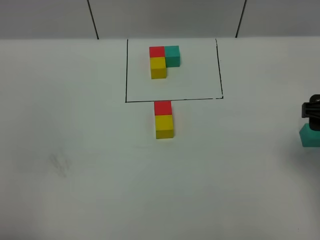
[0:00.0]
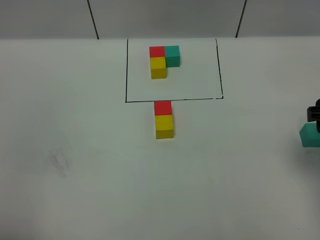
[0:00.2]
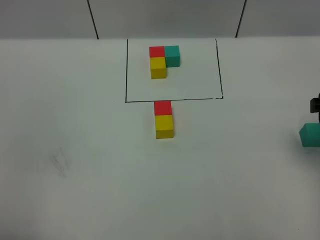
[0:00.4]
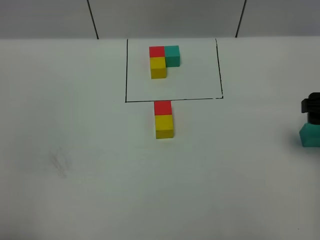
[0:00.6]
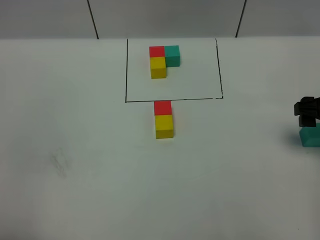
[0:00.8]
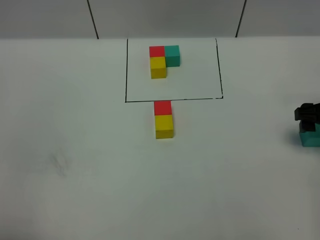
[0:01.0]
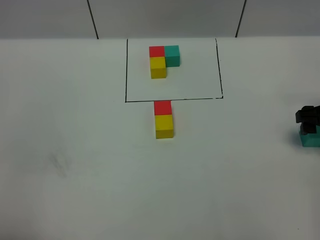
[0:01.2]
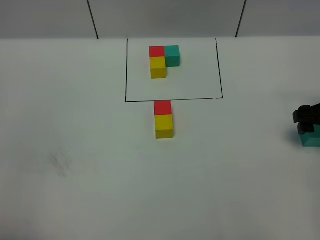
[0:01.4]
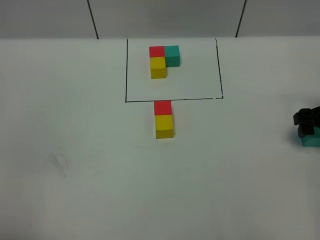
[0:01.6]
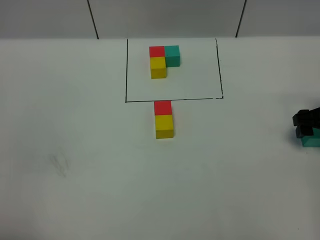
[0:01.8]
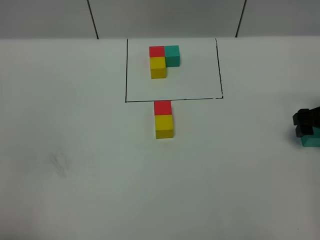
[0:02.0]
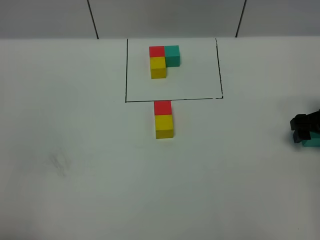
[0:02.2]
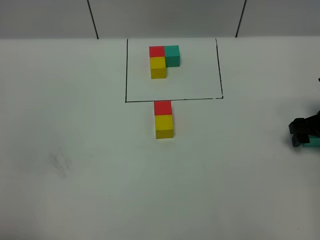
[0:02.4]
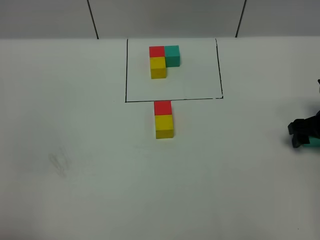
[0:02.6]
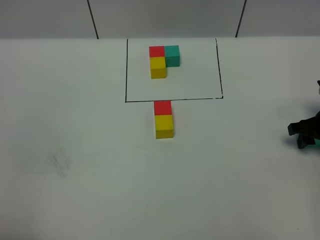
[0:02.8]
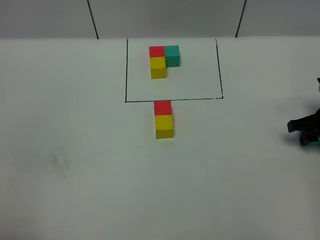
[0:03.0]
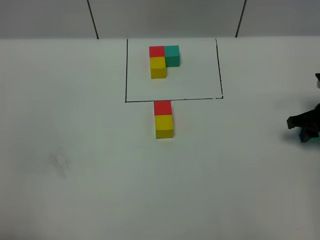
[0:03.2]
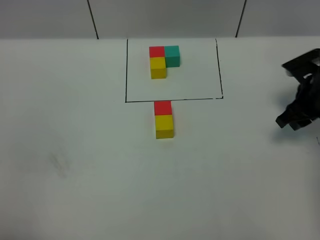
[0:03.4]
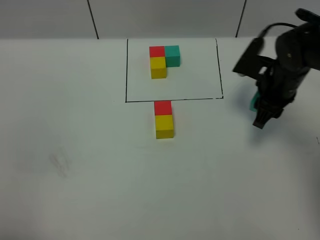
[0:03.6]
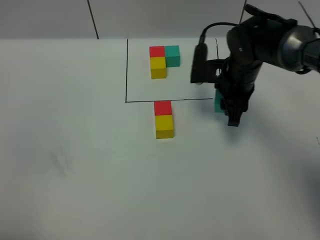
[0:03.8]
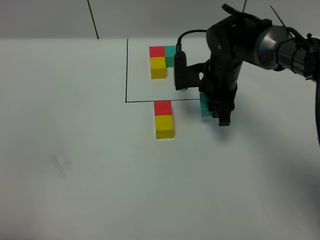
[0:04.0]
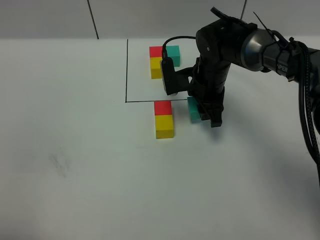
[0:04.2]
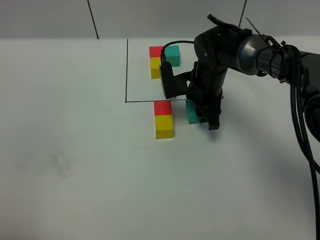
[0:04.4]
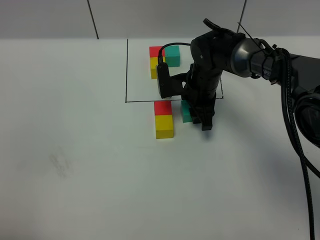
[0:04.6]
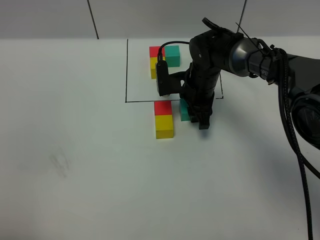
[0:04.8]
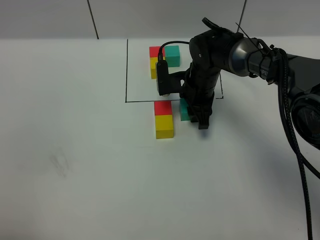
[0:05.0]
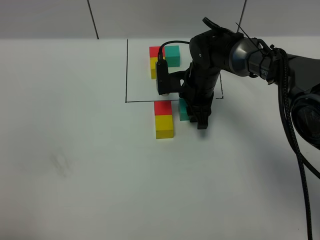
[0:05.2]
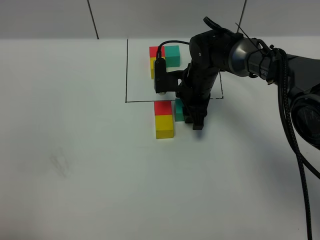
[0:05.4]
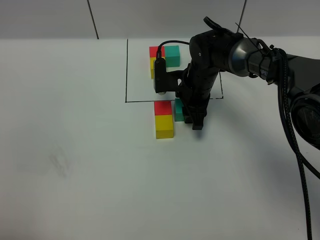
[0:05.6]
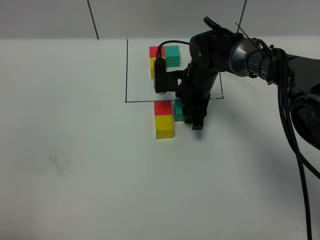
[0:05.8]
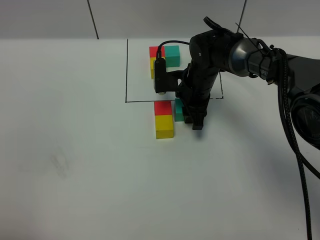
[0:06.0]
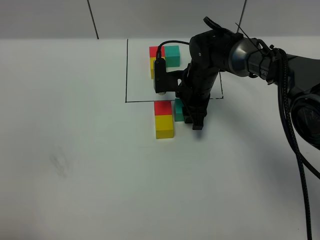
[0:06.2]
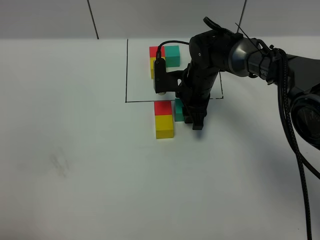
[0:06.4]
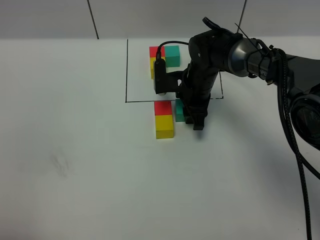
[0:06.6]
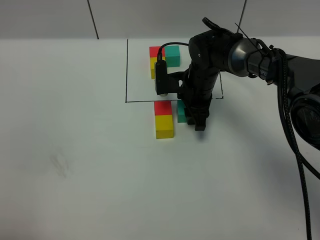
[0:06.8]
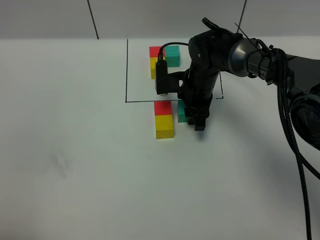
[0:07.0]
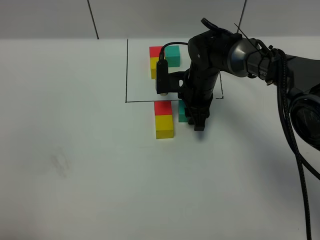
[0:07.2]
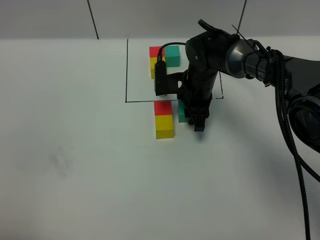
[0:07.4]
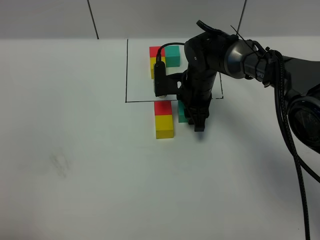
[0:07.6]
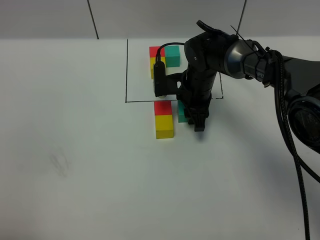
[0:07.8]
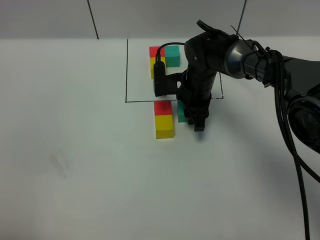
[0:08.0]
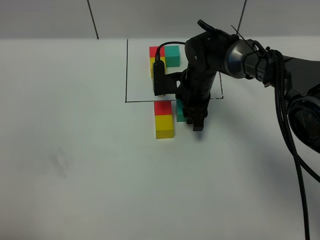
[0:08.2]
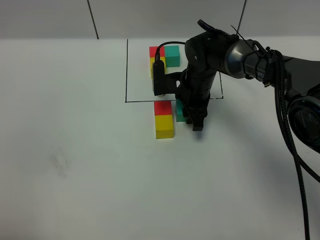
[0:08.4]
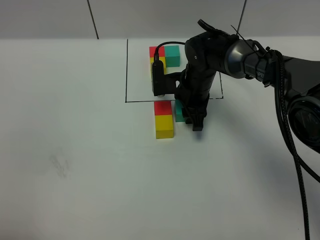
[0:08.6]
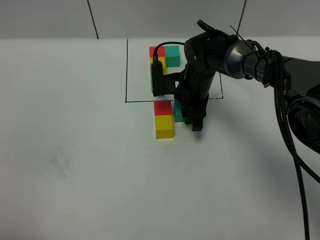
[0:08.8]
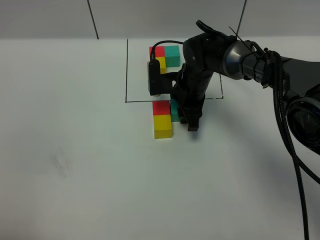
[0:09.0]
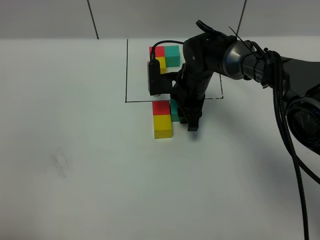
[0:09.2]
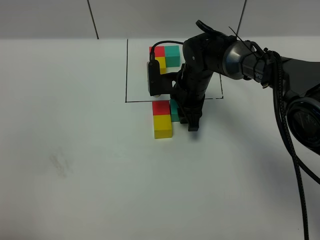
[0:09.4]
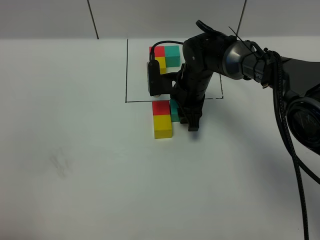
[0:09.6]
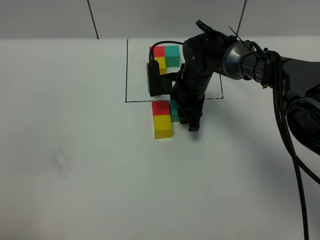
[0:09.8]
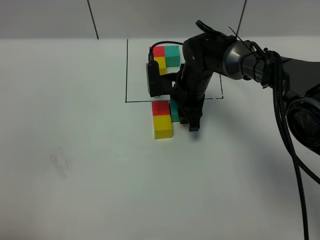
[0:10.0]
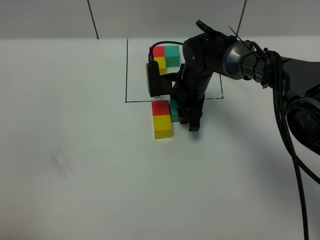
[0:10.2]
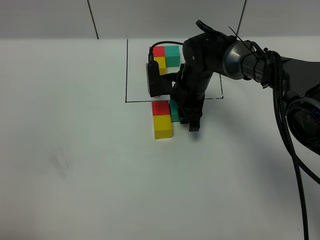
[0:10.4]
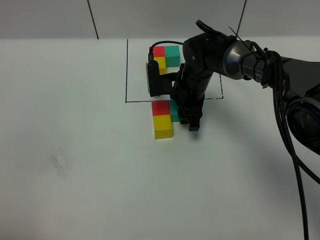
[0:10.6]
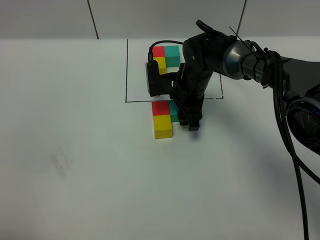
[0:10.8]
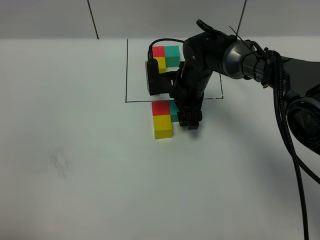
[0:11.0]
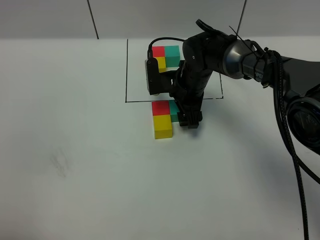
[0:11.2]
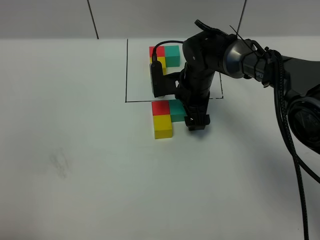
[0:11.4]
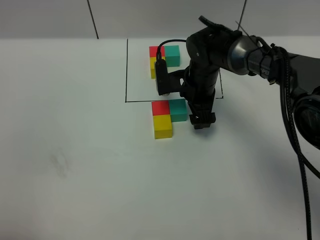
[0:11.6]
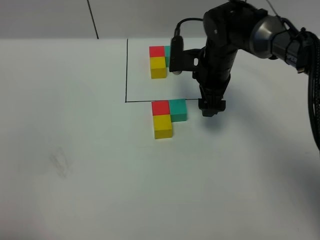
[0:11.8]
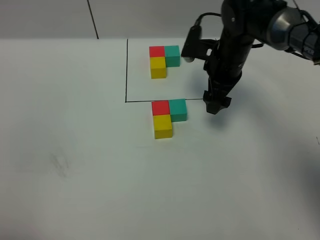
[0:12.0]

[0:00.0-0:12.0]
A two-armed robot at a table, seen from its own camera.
Task of the whole recording: According to the building block template in front, assemble the scattered blocks together.
Step, 0:00.0 to 0:10.8: Put the green build block on the right of the red build block.
0:00.0 to 0:01.6: The right gripper goes about 20 cm downward, forward and to the right.
0:01.6 to 0:03.0: The right gripper closes its fingers.
0:03.0 to 0:04.4: The right gripper goes some 25 cm to the left.
0:04.4 to 0:06.0: There are only small adjustments of the grippers.
0:06.0 to 0:10.4: The two grippers keep their place.
0:10.4 to 0:12.0: The right gripper goes about 10 cm to the right and upward, and opens.

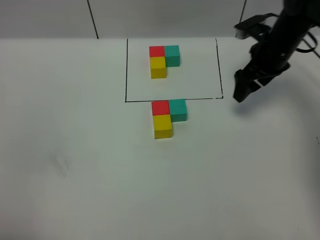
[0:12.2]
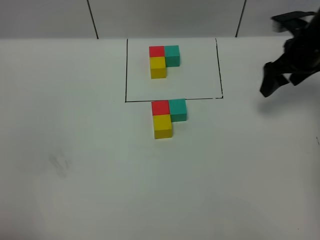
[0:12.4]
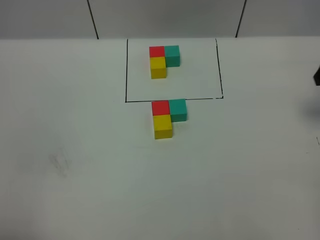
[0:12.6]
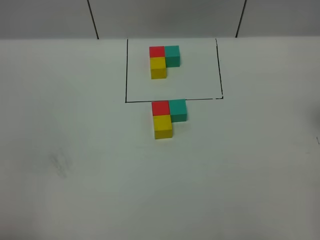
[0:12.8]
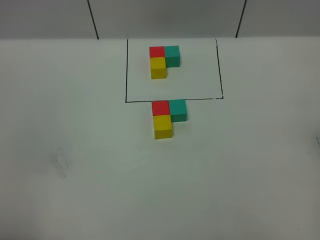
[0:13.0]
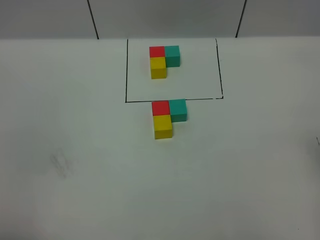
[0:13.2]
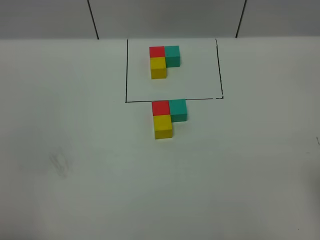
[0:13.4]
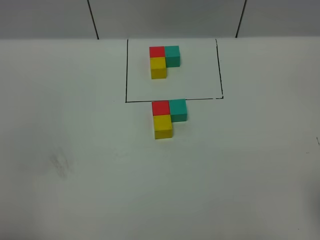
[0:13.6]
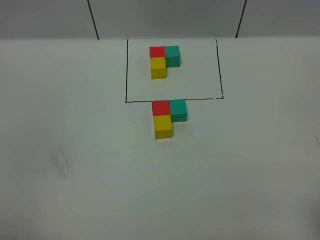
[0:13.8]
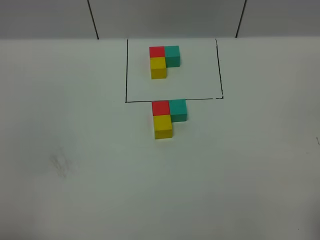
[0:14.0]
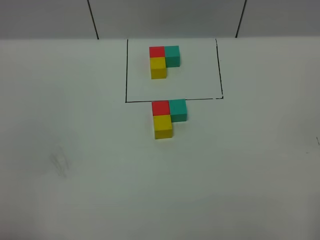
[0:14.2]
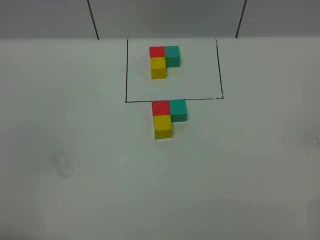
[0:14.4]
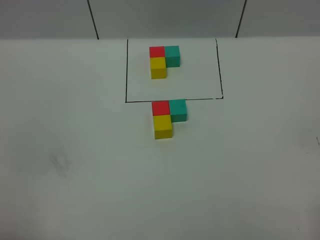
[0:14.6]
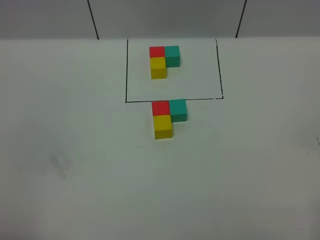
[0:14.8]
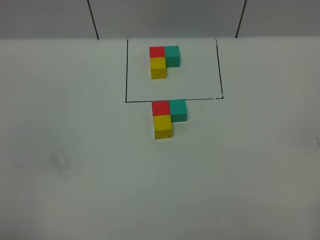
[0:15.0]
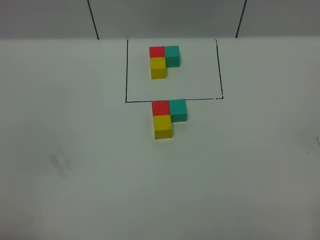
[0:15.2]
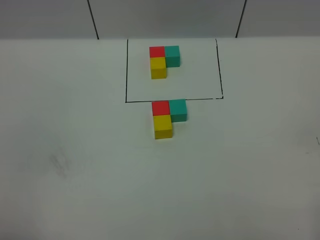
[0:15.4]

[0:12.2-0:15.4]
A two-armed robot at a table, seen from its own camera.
Task of the whole recording: According to the building block template in front, assemble the scattered blocks together.
0:12.2 to 0:13.8: The right gripper moves backward, approximately 40 cm.

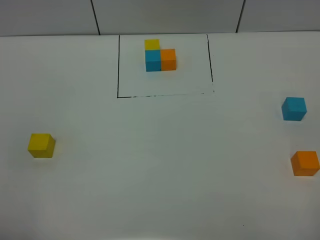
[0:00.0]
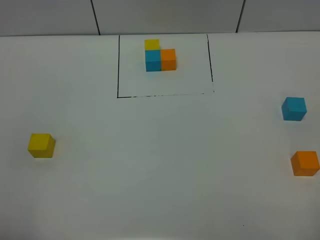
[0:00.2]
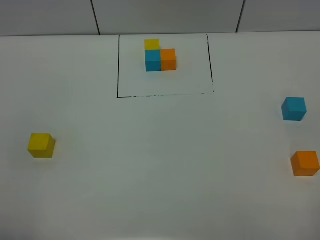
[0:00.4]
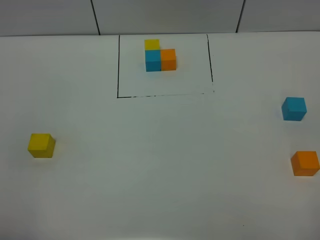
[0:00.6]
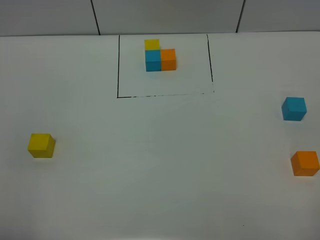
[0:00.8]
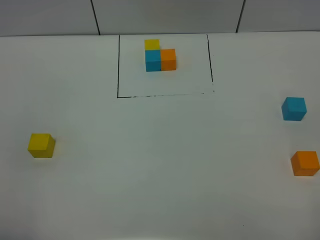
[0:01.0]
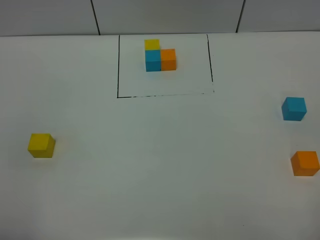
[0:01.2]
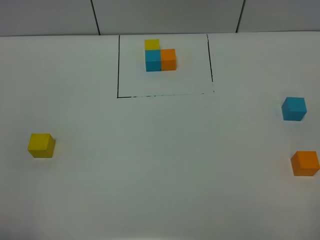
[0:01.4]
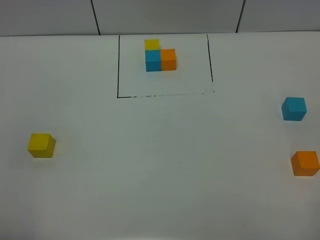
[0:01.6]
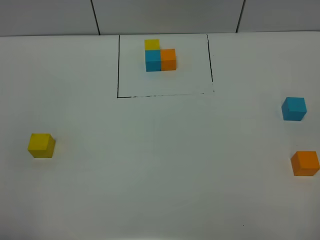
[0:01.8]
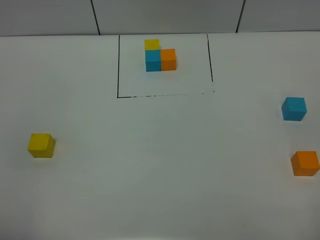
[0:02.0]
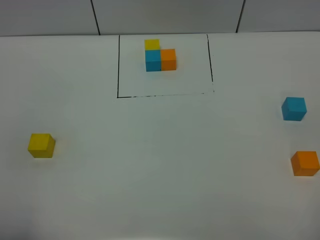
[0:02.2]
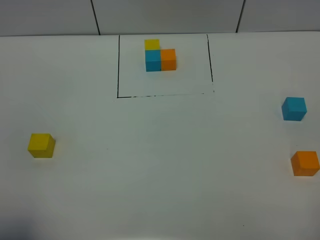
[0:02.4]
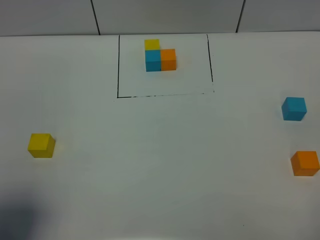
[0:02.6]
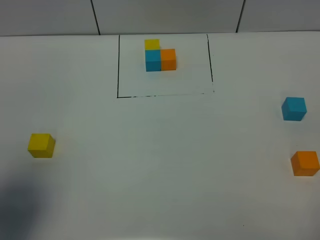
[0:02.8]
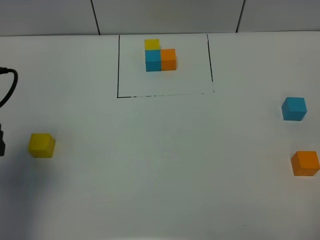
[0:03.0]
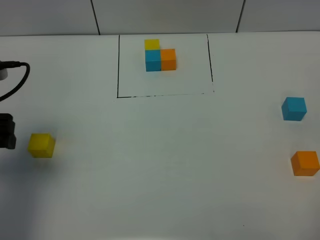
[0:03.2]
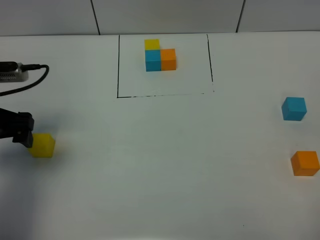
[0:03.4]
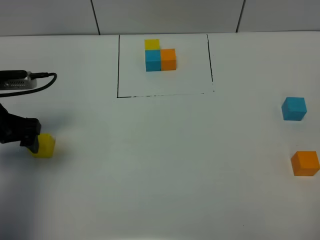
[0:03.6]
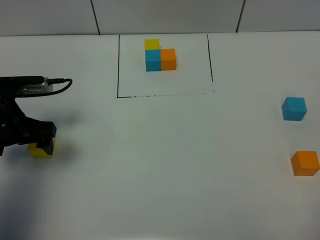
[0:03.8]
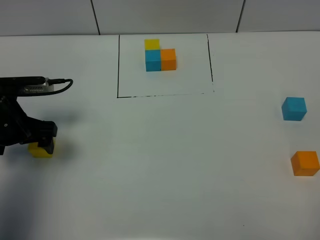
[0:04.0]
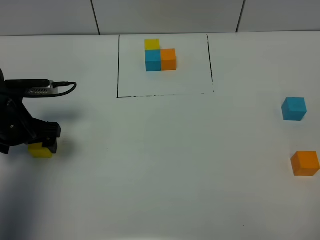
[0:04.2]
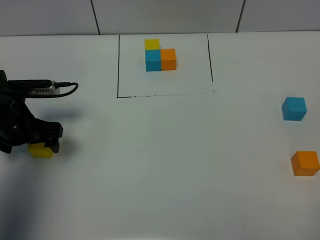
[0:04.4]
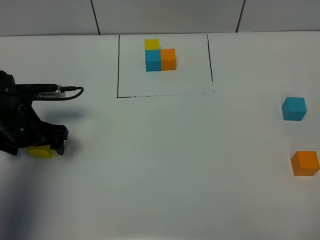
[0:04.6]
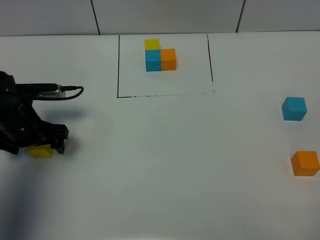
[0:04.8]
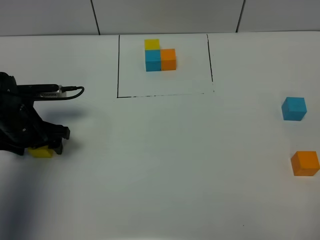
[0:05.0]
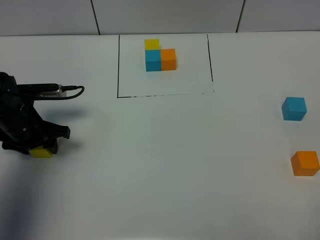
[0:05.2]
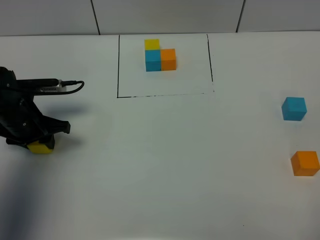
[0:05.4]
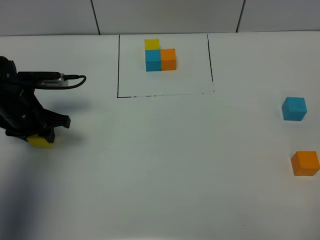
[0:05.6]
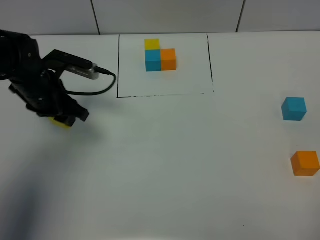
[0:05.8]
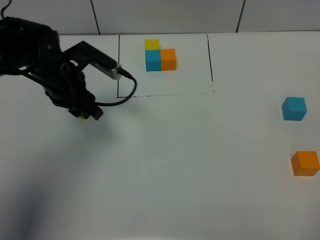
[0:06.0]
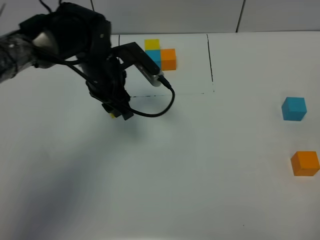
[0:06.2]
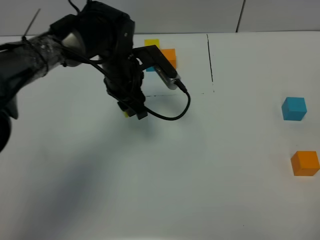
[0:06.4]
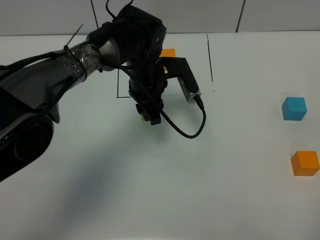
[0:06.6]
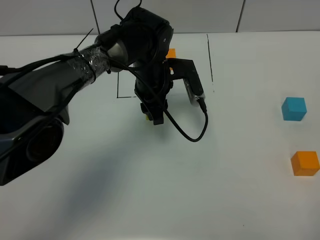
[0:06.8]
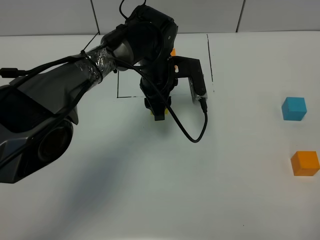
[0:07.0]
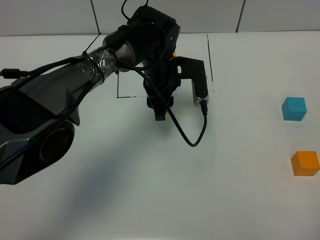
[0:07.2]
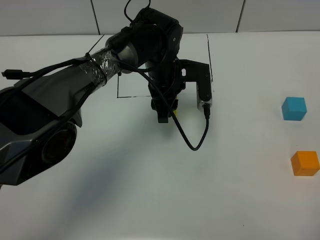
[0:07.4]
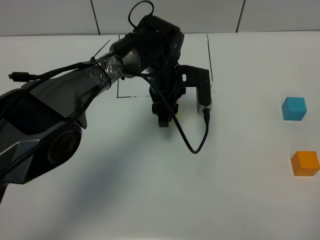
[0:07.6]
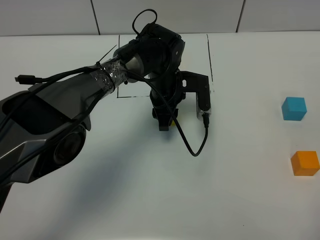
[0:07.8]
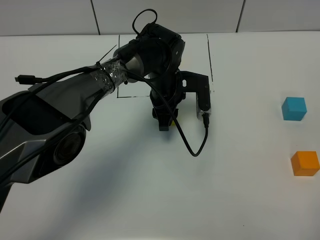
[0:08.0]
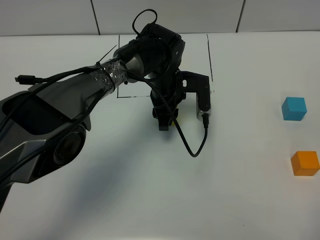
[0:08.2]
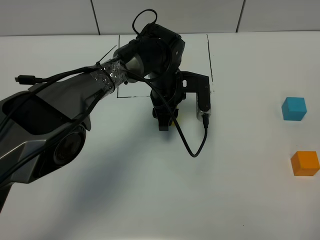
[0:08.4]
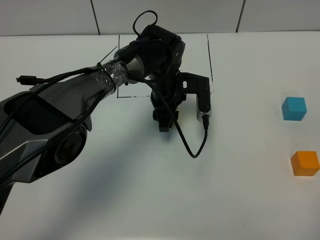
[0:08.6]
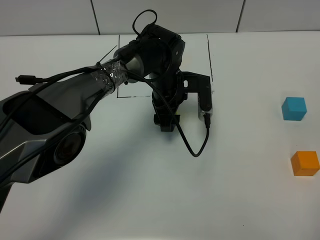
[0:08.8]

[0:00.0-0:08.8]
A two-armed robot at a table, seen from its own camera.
Task of the whole recording: According to the building block template in front, assemble the scattered blocks together.
Step, 0:00.0 to 0:08.6: Put the yellow build block in the center of the table.
0:00.0 to 0:01.4: Both grippers stay put.
0:01.4 to 0:03.0: The left gripper moves forward, about 20 cm.
0:03.0 to 0:04.4: The left gripper moves downward and forward, approximately 20 cm.
0:04.4 to 0:05.8: The left gripper travels to the right by about 5 cm, and closes its fingers.
0:05.8 to 0:07.4: The left gripper shifts about 20 cm to the right.
0:07.4 to 0:08.8: The left gripper opens.
